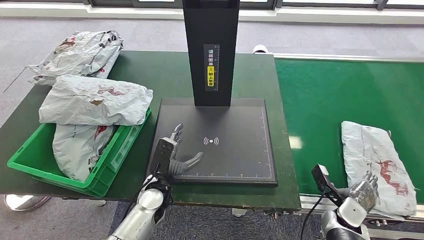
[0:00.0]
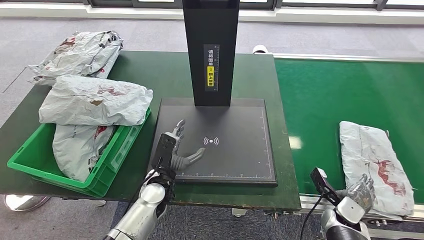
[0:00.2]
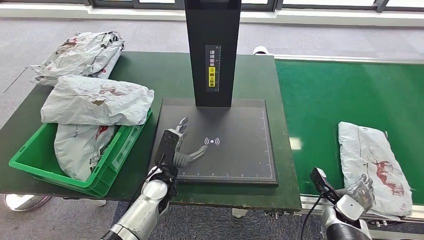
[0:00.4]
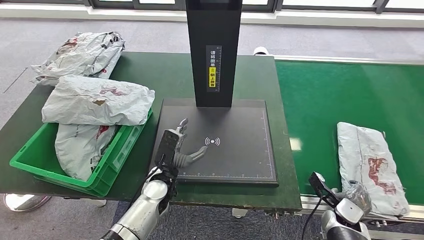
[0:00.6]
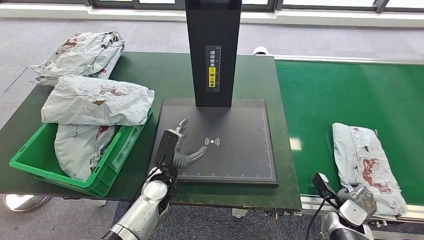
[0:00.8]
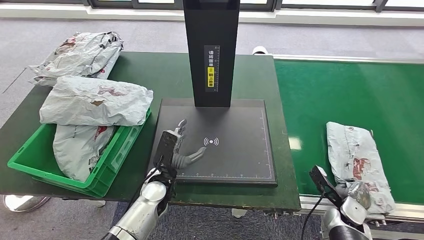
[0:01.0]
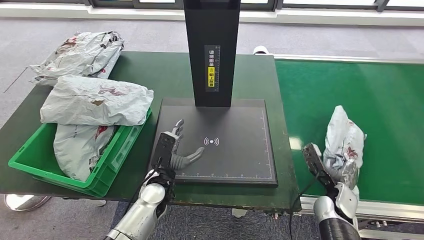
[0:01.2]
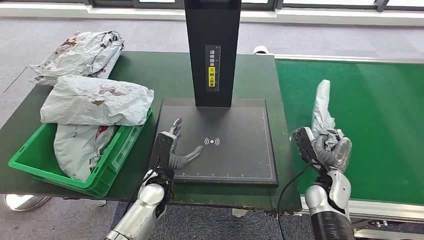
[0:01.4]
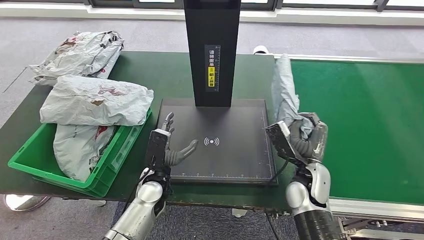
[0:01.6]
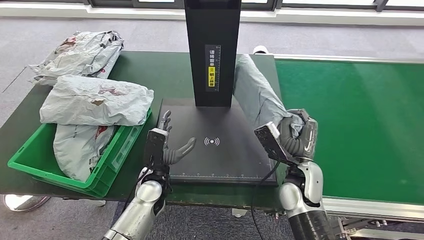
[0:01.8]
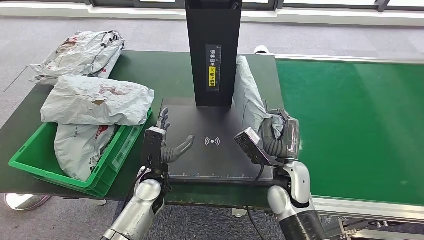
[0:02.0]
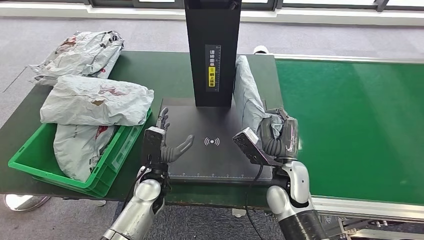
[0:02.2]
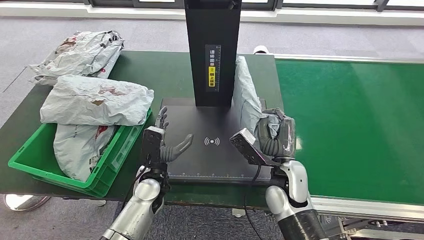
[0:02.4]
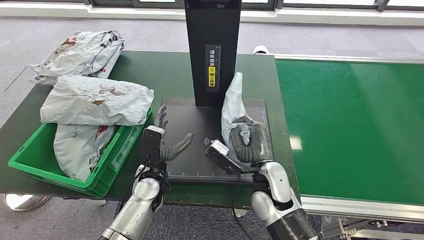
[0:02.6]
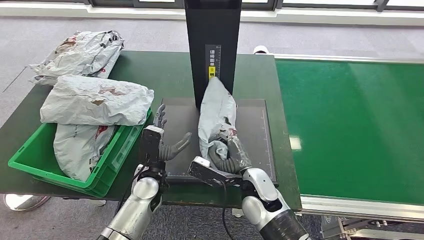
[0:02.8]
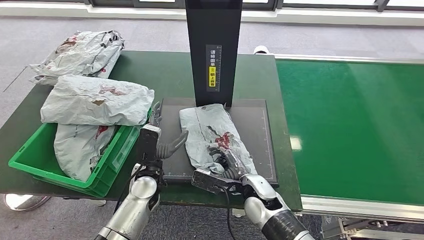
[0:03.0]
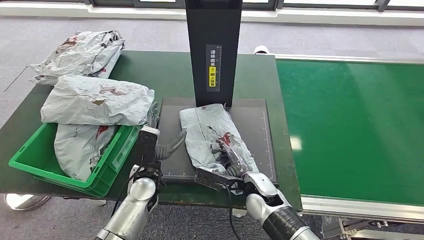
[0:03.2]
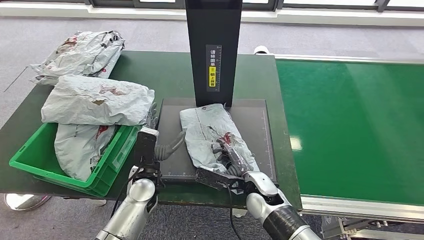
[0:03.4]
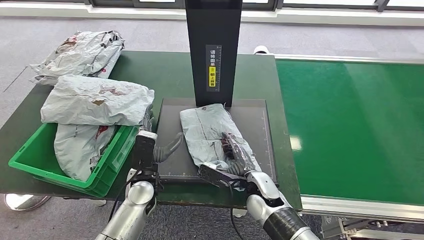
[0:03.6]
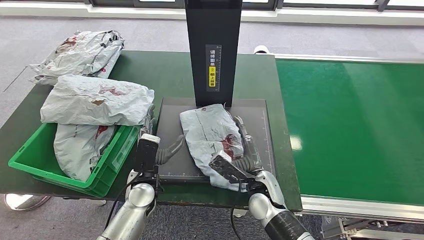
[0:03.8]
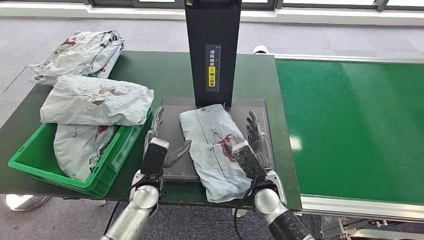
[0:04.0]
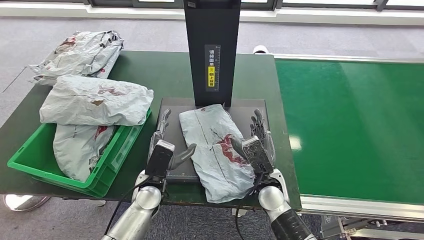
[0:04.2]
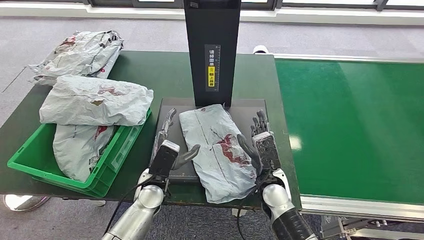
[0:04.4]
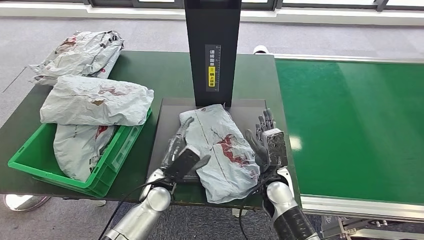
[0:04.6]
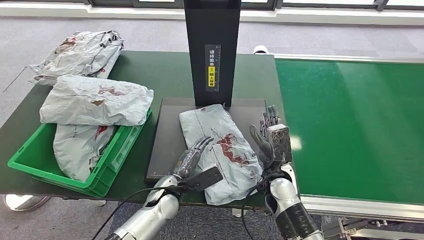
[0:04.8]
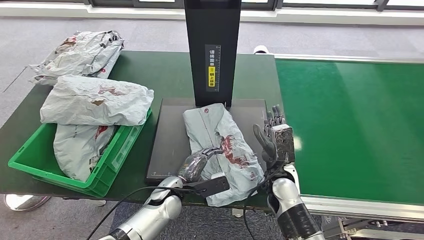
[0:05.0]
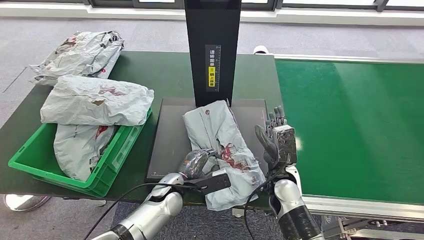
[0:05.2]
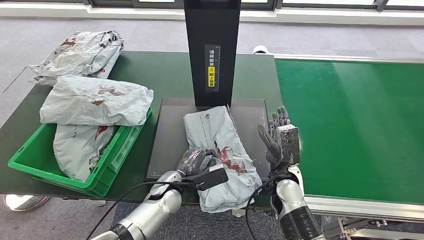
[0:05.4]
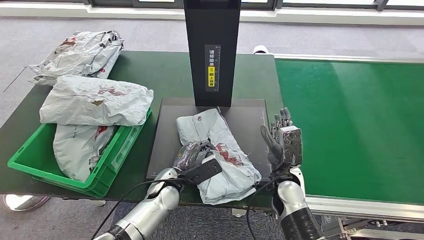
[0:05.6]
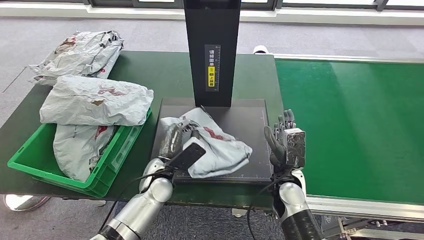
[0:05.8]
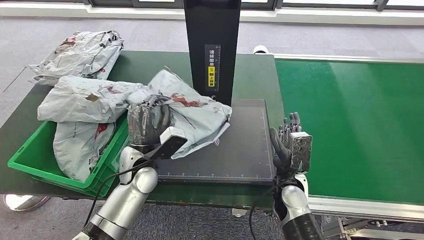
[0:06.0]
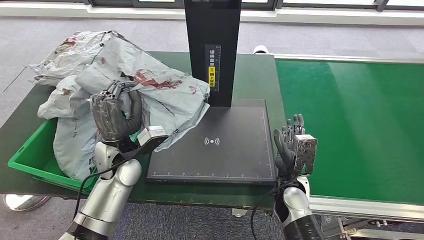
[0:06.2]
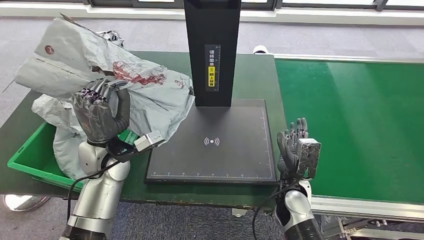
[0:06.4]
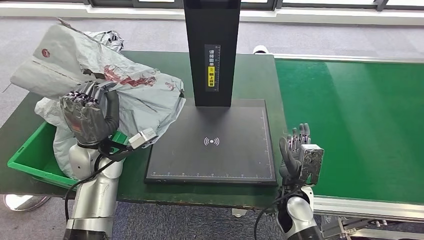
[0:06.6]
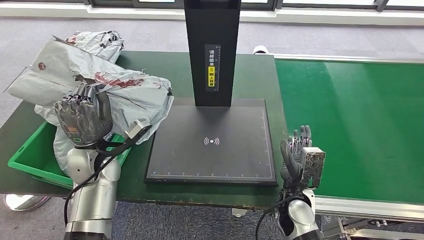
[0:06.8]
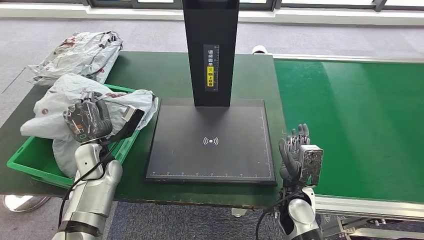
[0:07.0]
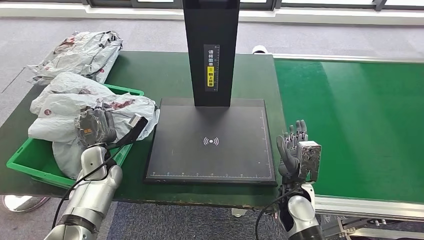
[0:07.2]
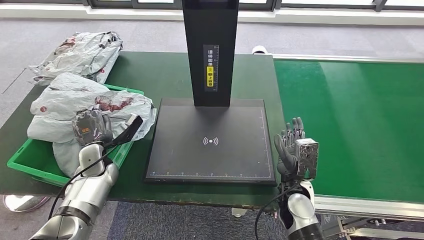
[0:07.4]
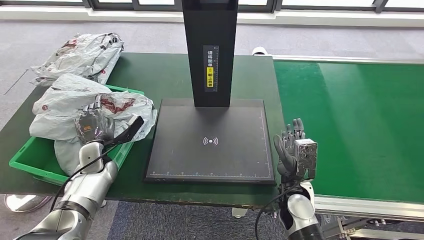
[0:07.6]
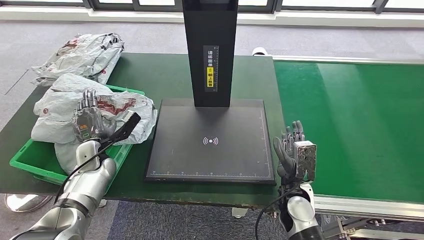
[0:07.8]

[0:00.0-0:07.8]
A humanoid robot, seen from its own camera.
Step, 0:00.0 to 0:02.2: Pick up the parcel from the conveyor belt.
Step, 0:02.4 to 0:04.4: Place the parcel onto the inbound machine.
Step, 0:04.6 to 0:06.8: Pick up the parcel from the inbound machine.
Step, 0:07.0 to 0:07.8: Place the parcel into the delivery box.
0:01.6 to 0:03.2: The right hand moves to the left, roughly 10 cm.
